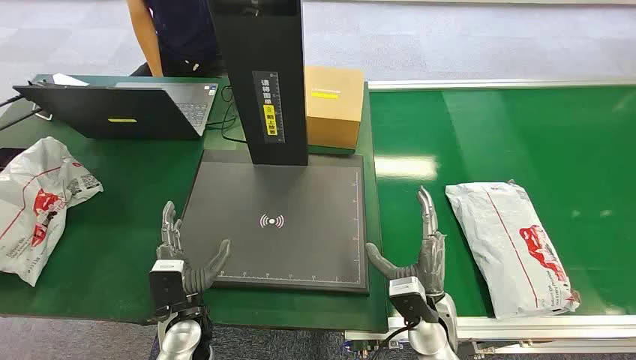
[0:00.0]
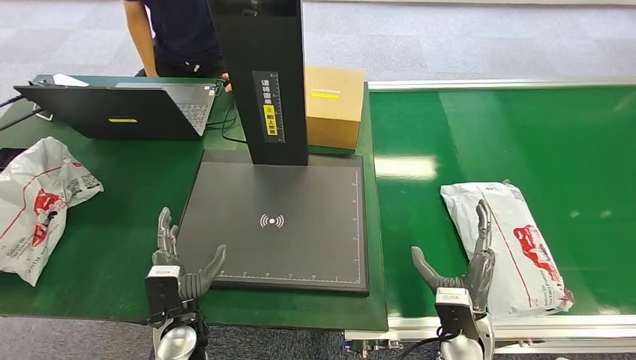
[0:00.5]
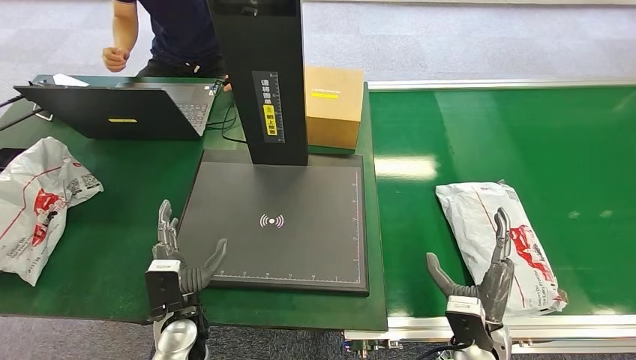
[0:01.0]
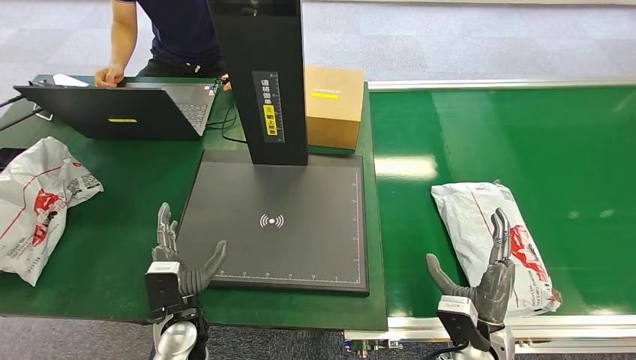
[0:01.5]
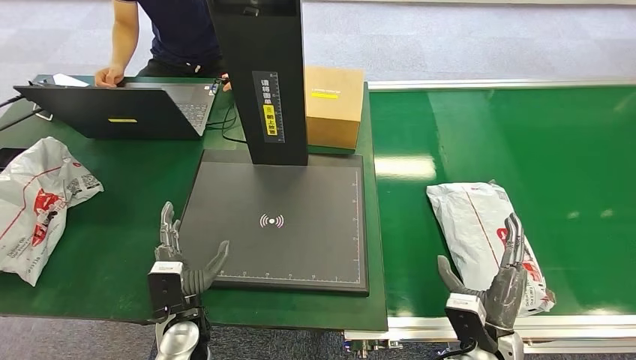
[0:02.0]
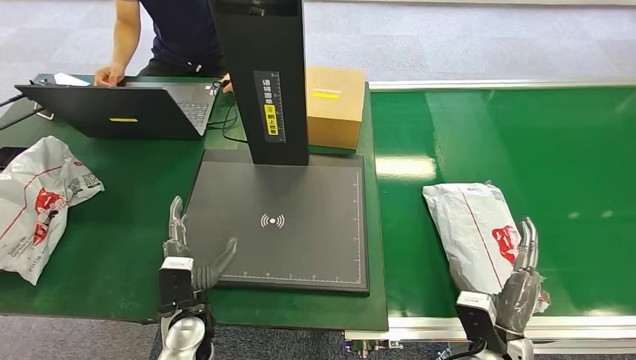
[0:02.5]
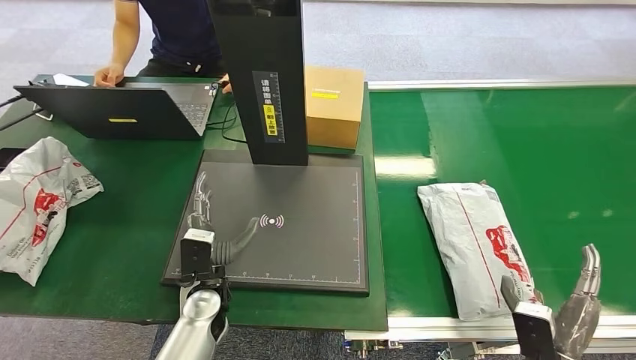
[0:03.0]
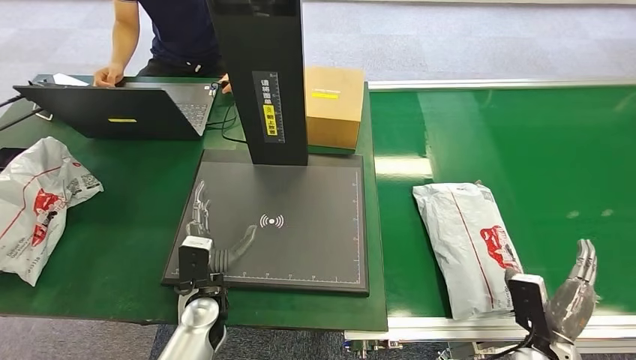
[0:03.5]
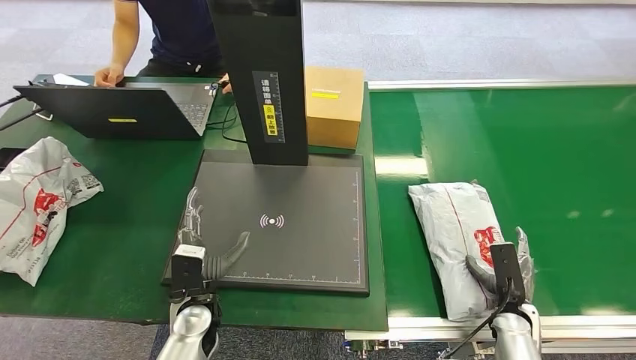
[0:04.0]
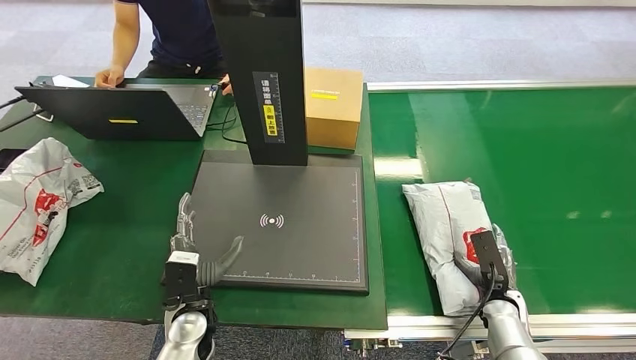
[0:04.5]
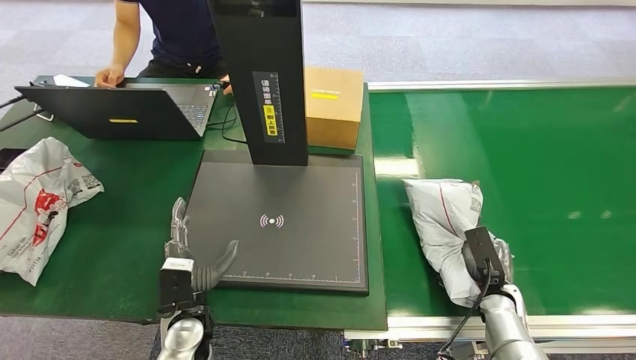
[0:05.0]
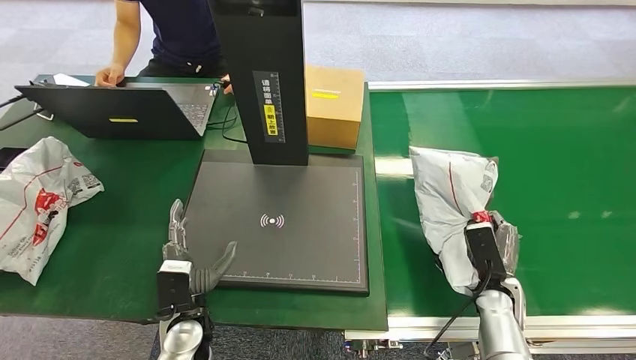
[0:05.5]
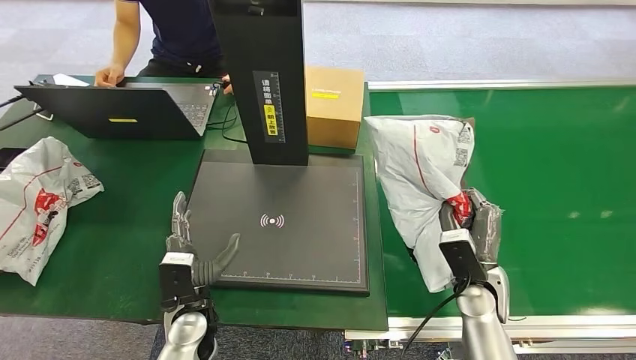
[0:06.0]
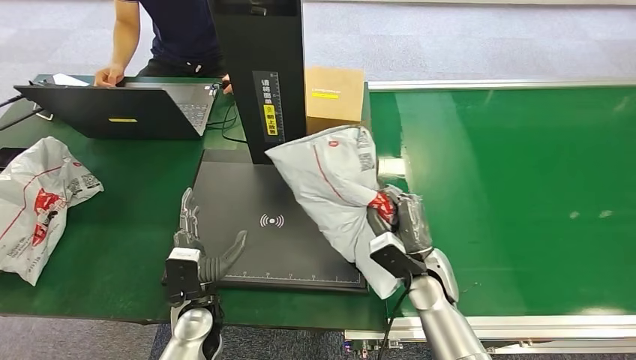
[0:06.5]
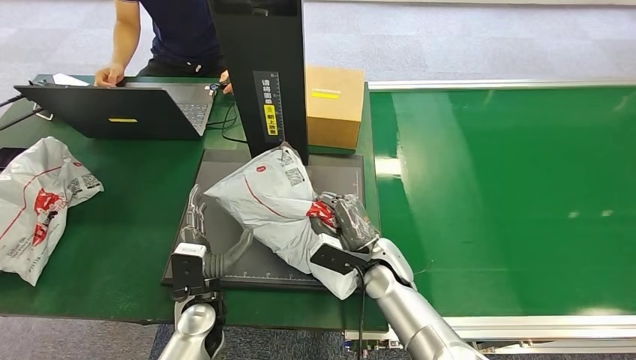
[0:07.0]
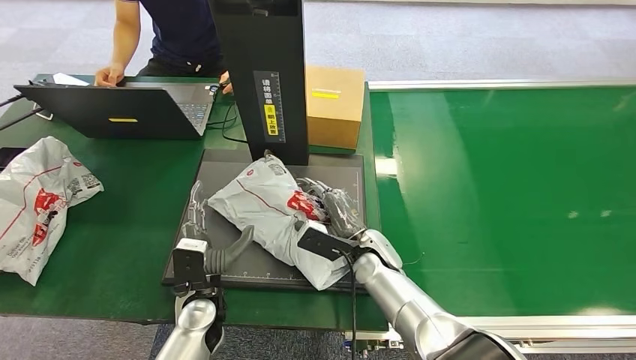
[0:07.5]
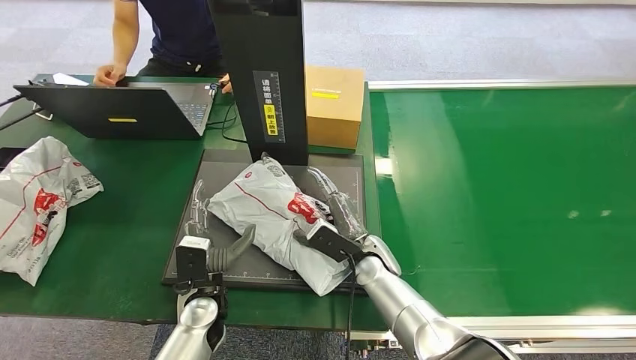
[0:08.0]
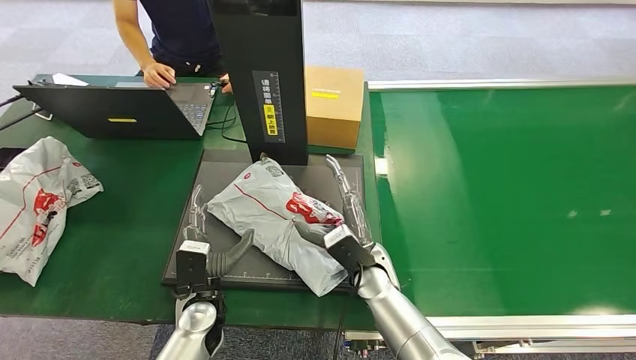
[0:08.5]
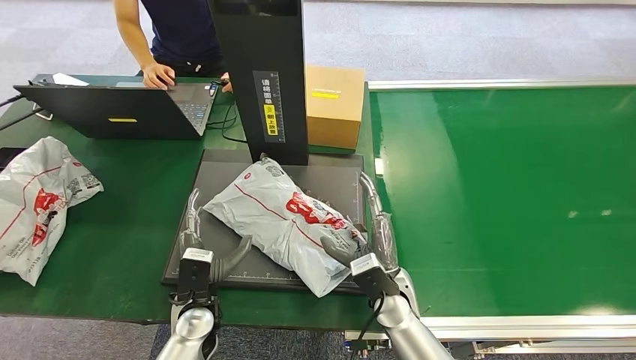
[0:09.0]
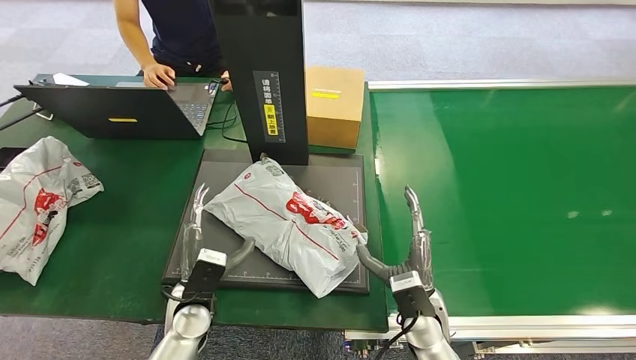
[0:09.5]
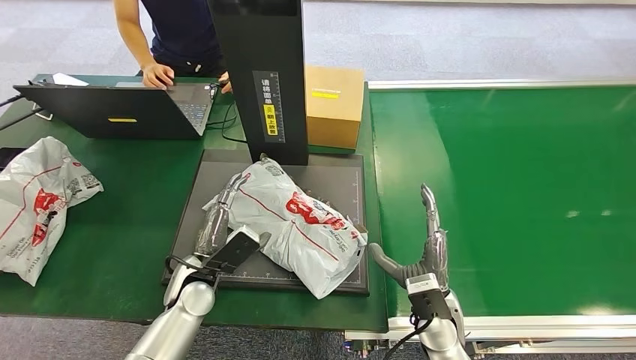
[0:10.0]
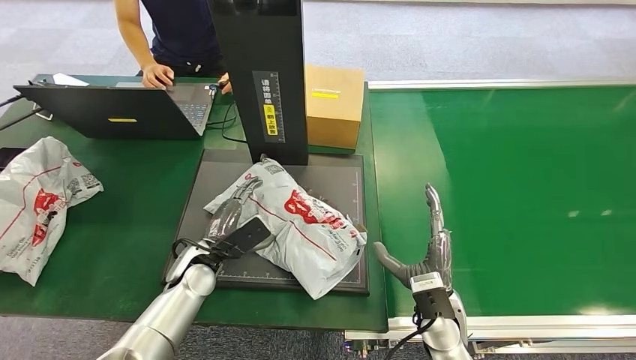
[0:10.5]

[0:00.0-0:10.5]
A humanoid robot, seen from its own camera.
Step, 0:00.0 to 0:06.0: Pick up the package from the conveyor belt.
Step, 0:06.5 to 0:08.5: Place the package onto the inbound machine.
0:02.0 to 0:04.0: The right hand travels to the right, downward and forward by about 15 cm.
0:04.0 to 0:06.5: The right hand goes roughly 20 cm to the left and upward.
0:06.5 to 0:08.5: The right hand moves to the left, roughly 10 cm.
0:08.5 to 0:10.5: The right hand goes about 15 cm to the right and backward, while the left hand travels forward by approximately 5 cm.

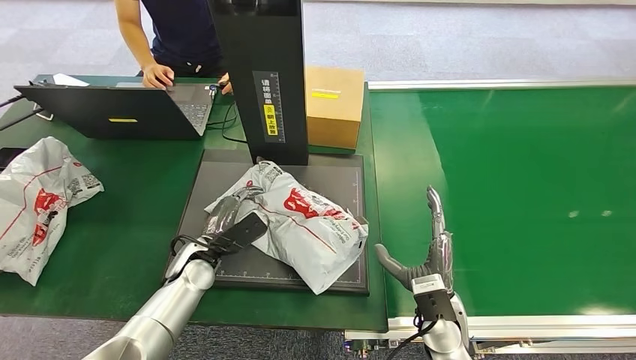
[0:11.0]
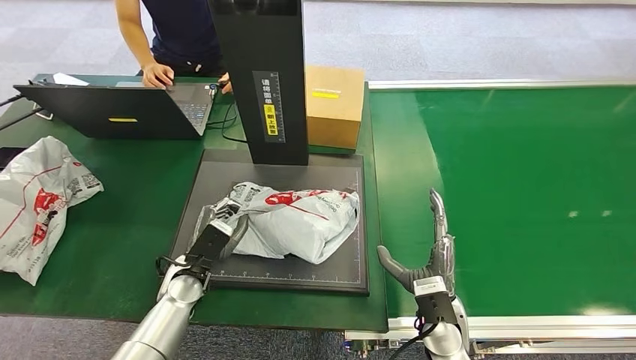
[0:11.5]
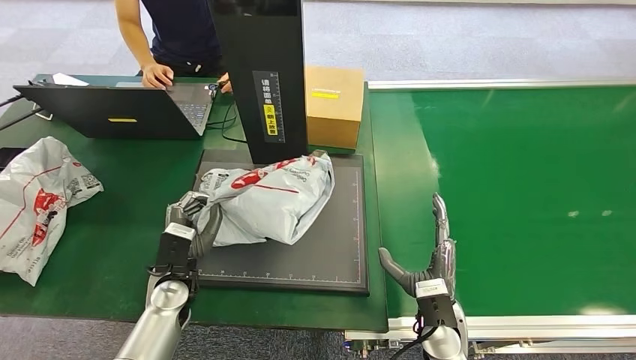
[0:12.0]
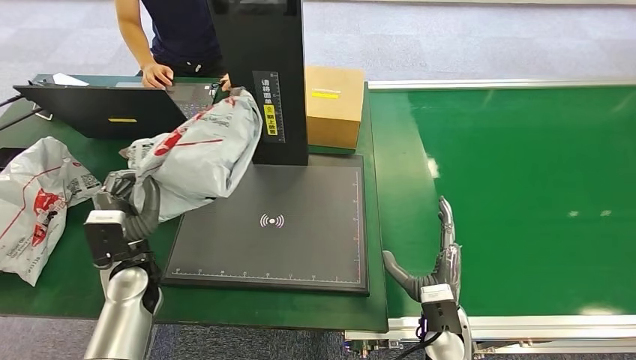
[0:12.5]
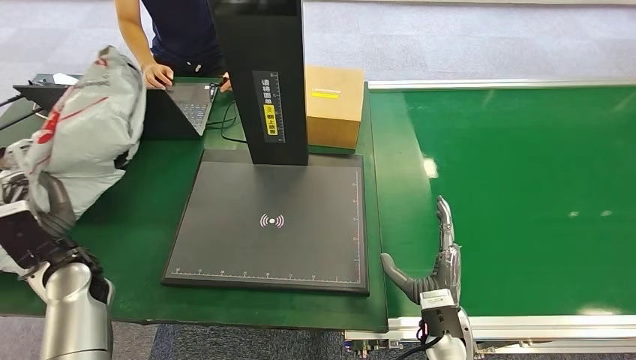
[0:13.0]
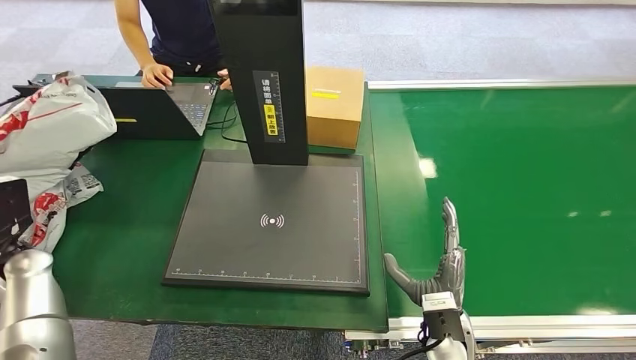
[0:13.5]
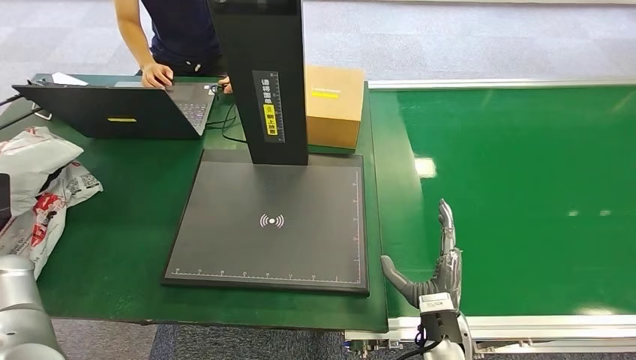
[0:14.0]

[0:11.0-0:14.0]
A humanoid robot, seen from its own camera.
Step, 0:12.5 to 0:14.0: Place the package into the parcel locker.
0:11.0 to 0:12.5: The left hand moves to the left, roughly 10 cm.
0:12.5 to 0:14.0: The left hand heads to the left, covering approximately 25 cm.

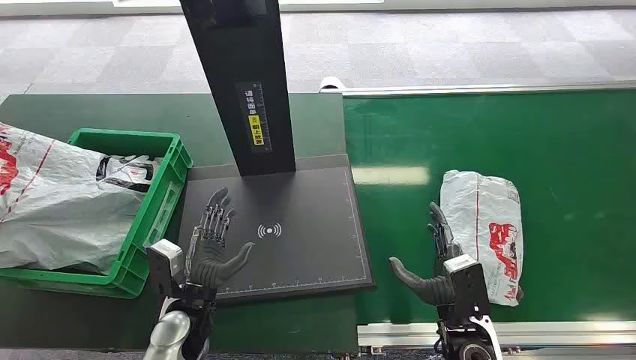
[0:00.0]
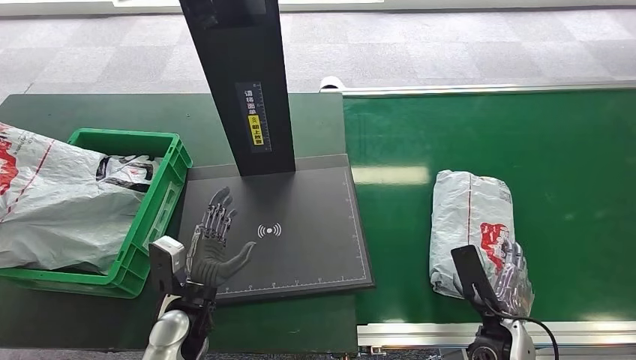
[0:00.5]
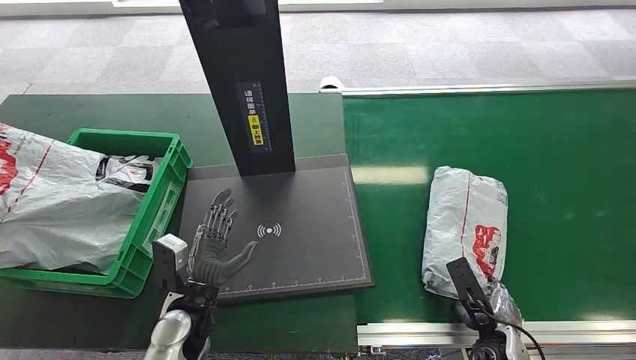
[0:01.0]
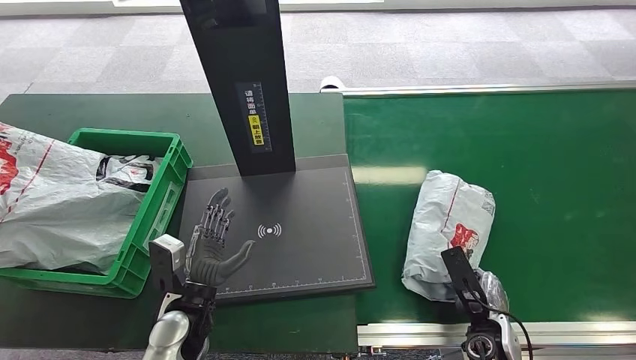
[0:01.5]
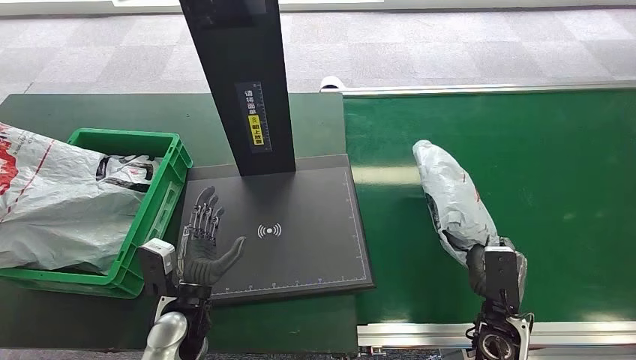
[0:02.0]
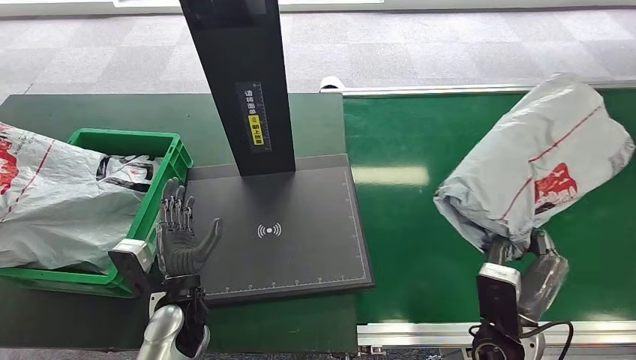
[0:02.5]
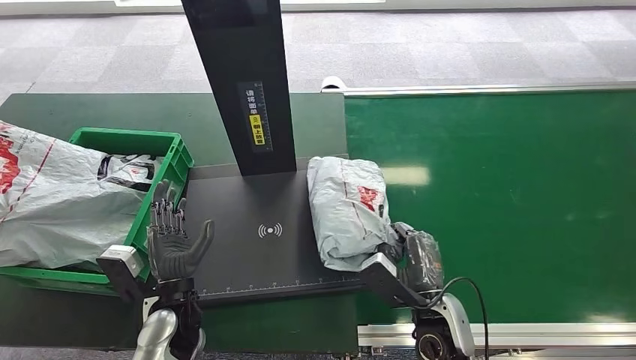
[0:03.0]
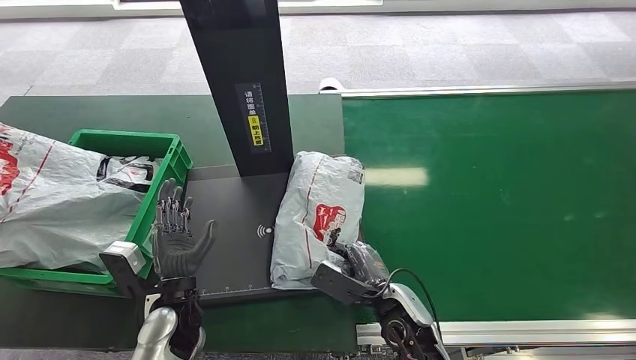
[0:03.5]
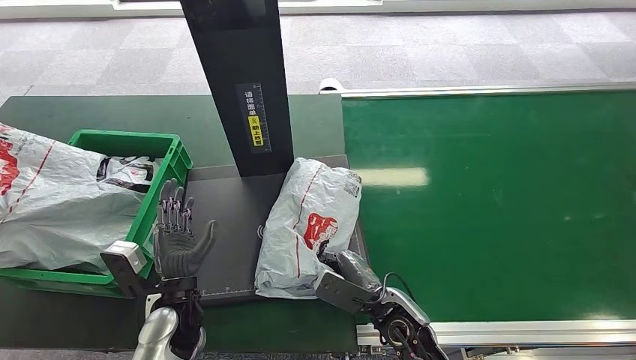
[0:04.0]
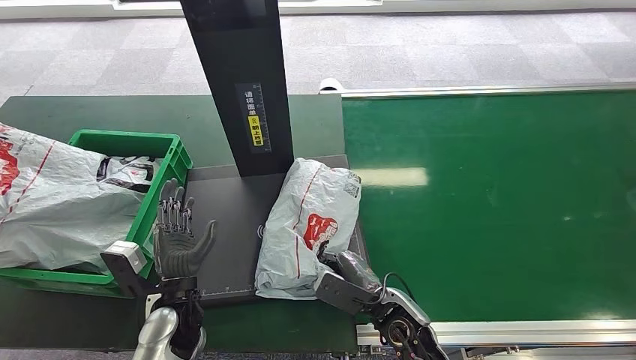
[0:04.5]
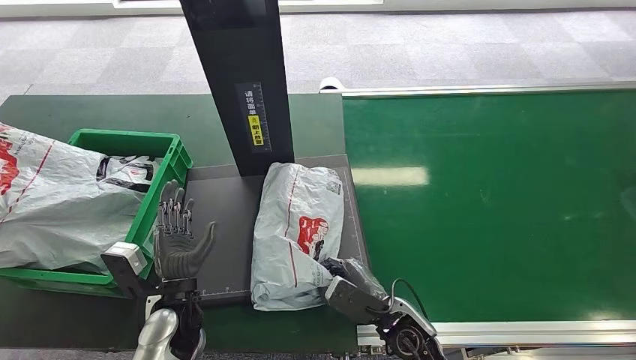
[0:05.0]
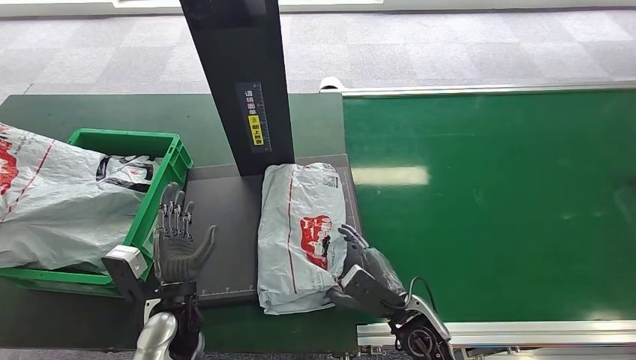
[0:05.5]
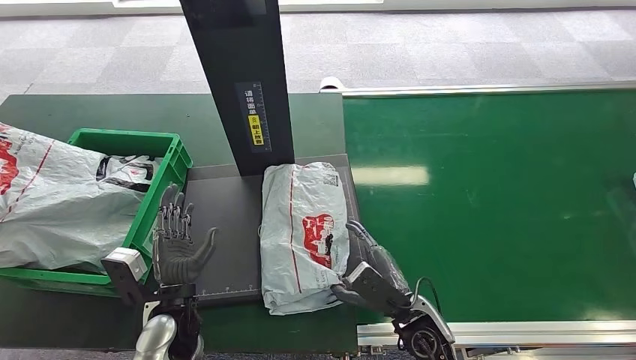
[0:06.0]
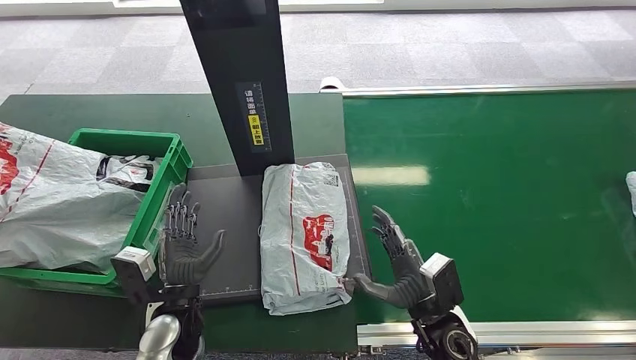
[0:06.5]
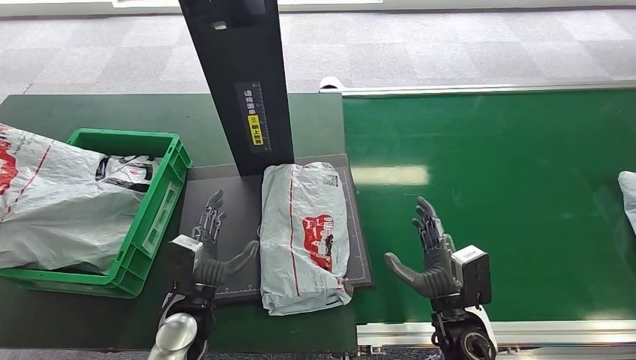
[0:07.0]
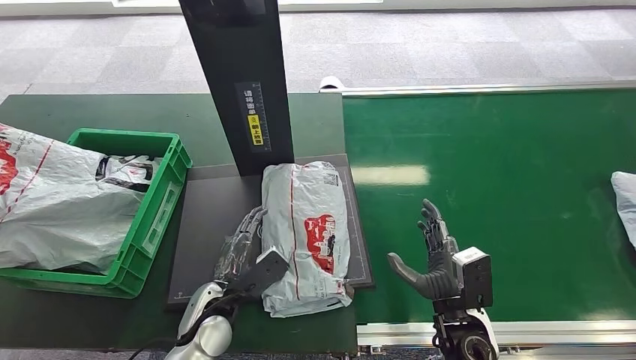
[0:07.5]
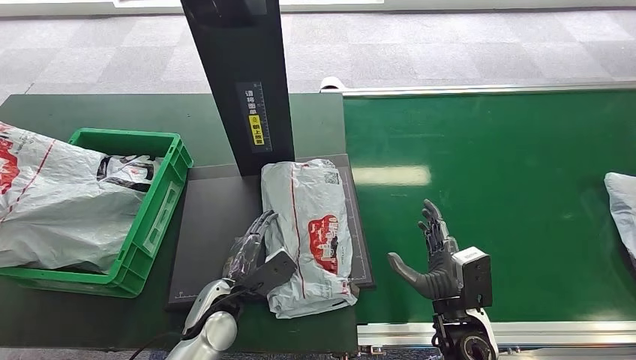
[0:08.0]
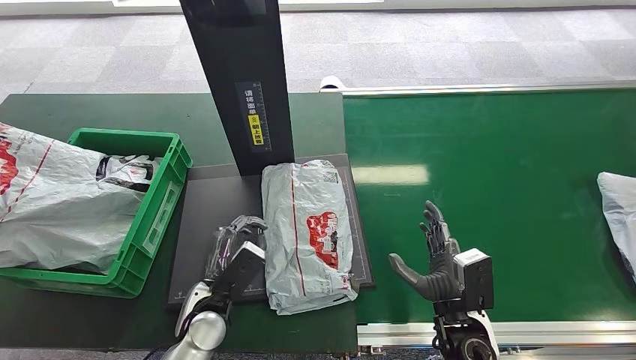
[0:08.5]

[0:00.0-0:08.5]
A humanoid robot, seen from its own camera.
Step, 0:00.0 to 0:02.0: Pick up the package from the conveyor belt.
Step, 0:02.5 to 0:03.5: Place the package onto the inbound machine.
0:04.0 to 0:06.5: The right hand is displaced to the right by roughly 5 cm.
